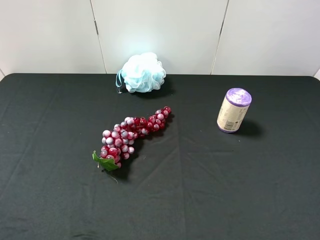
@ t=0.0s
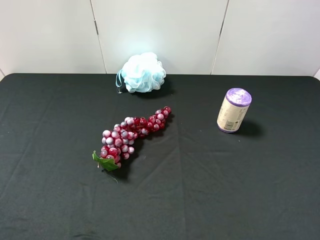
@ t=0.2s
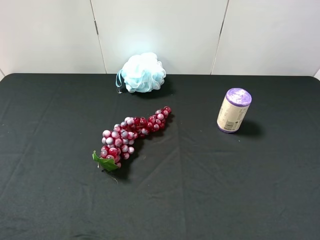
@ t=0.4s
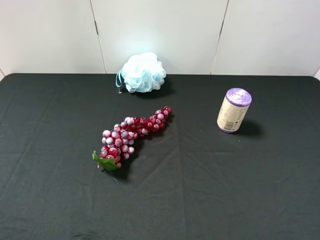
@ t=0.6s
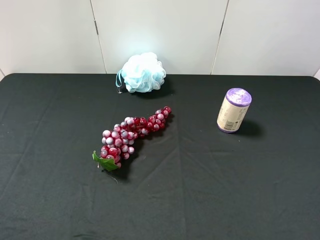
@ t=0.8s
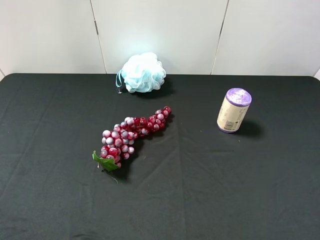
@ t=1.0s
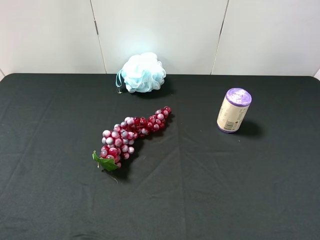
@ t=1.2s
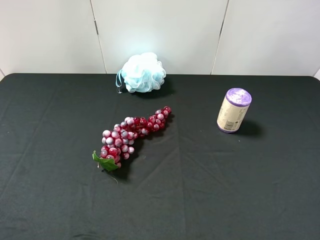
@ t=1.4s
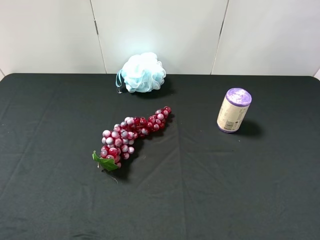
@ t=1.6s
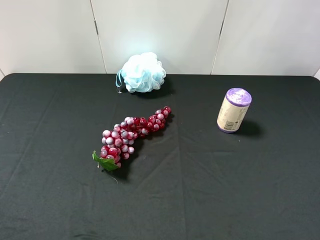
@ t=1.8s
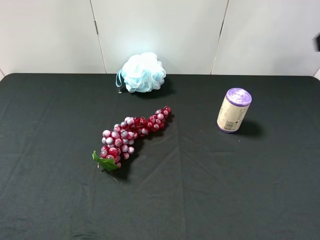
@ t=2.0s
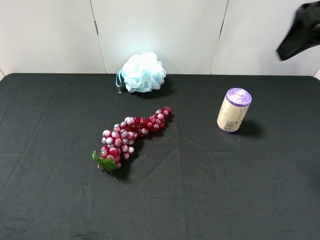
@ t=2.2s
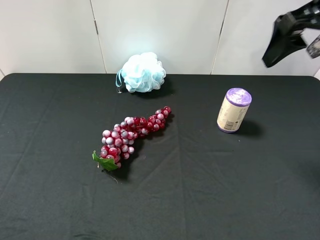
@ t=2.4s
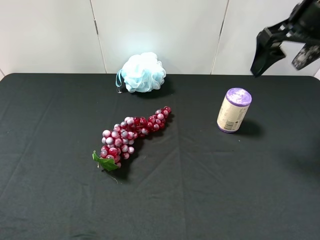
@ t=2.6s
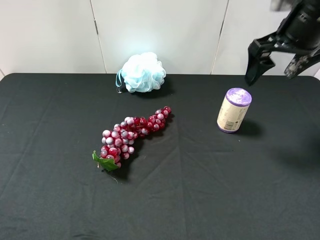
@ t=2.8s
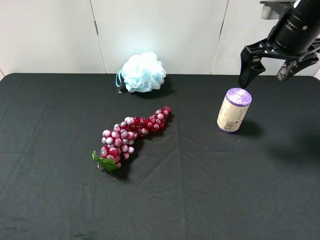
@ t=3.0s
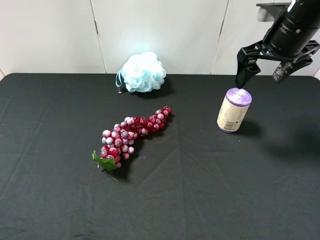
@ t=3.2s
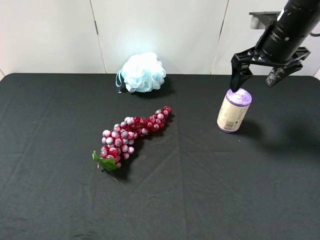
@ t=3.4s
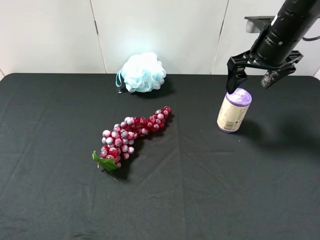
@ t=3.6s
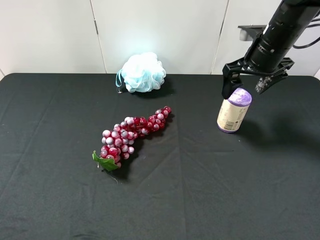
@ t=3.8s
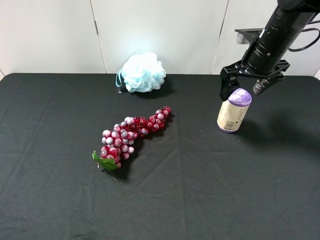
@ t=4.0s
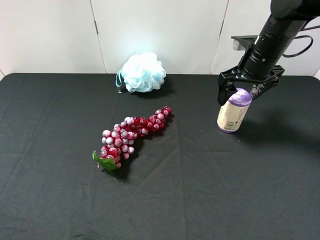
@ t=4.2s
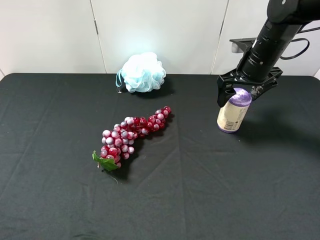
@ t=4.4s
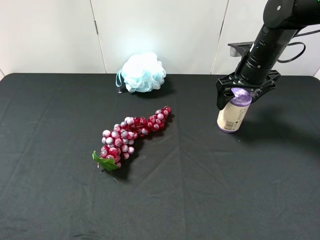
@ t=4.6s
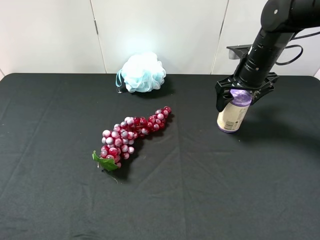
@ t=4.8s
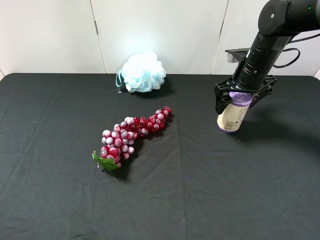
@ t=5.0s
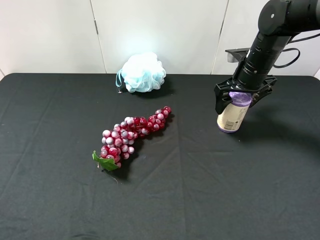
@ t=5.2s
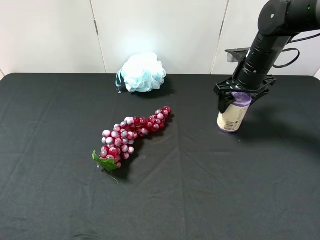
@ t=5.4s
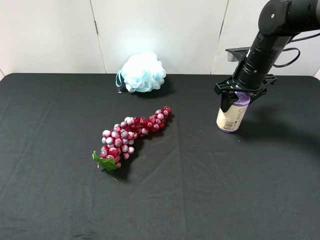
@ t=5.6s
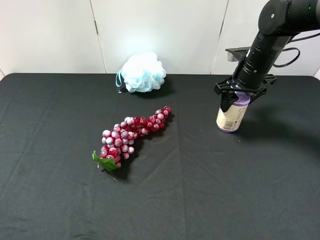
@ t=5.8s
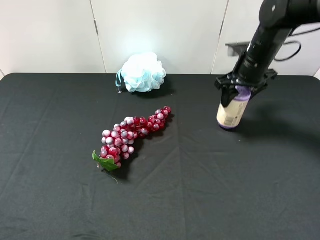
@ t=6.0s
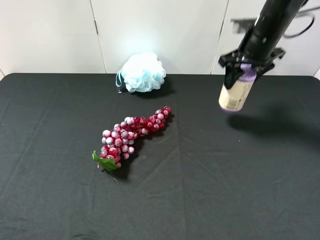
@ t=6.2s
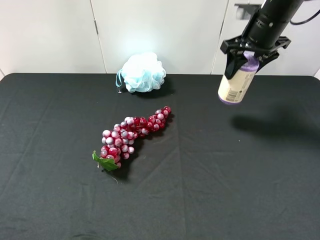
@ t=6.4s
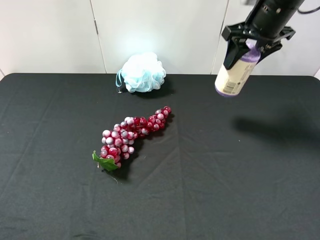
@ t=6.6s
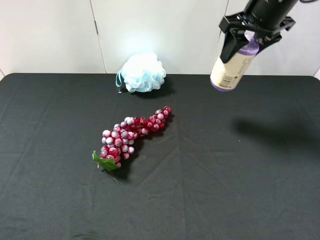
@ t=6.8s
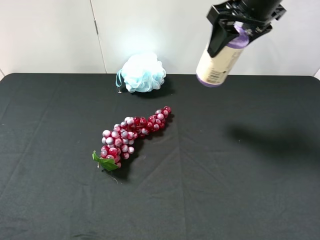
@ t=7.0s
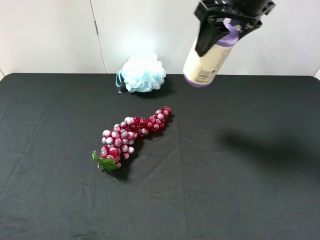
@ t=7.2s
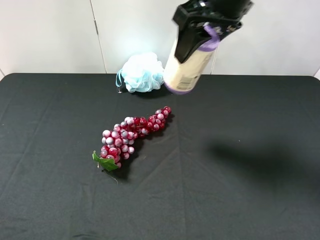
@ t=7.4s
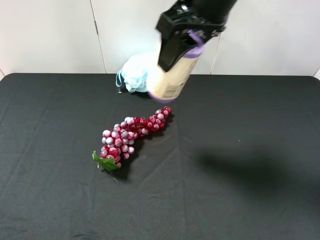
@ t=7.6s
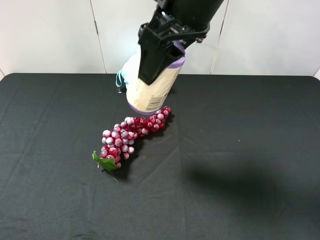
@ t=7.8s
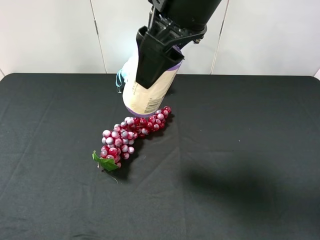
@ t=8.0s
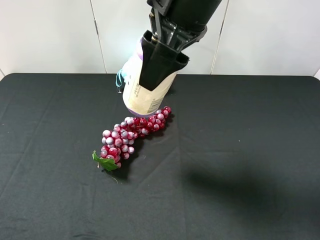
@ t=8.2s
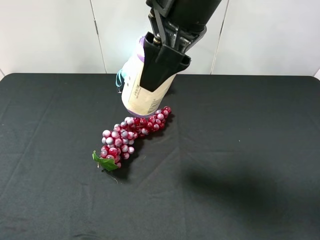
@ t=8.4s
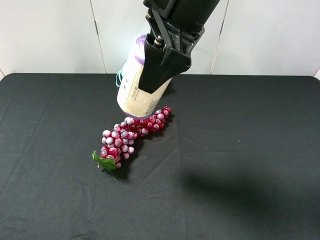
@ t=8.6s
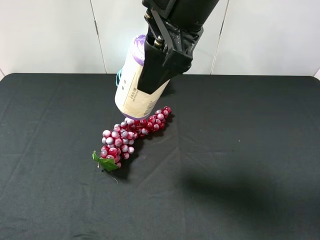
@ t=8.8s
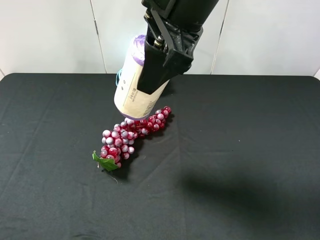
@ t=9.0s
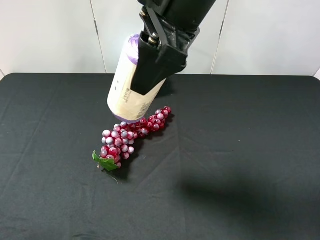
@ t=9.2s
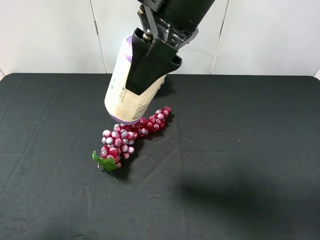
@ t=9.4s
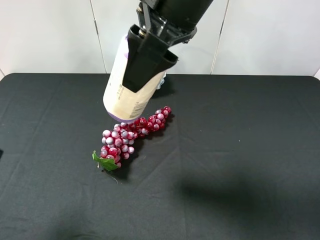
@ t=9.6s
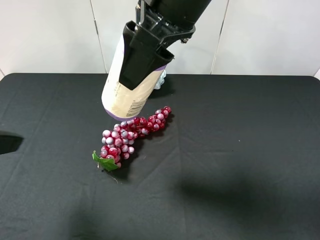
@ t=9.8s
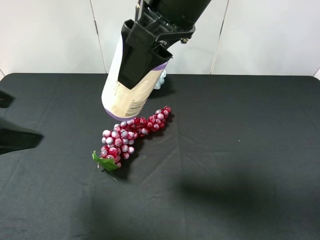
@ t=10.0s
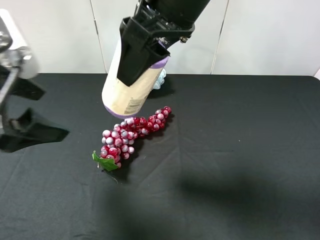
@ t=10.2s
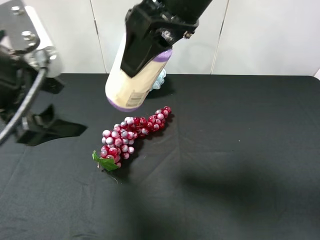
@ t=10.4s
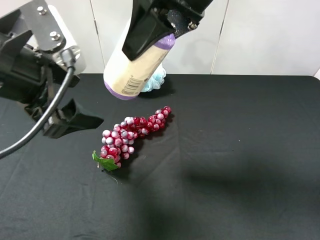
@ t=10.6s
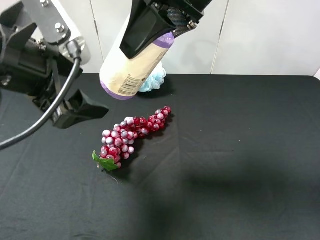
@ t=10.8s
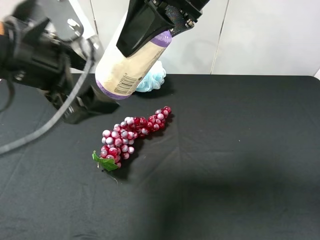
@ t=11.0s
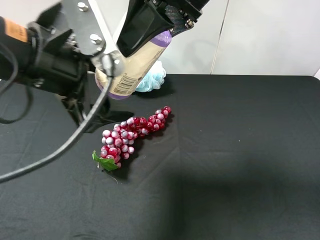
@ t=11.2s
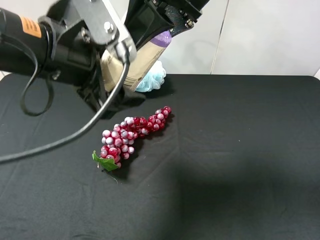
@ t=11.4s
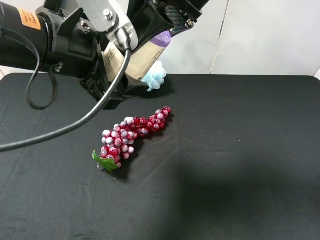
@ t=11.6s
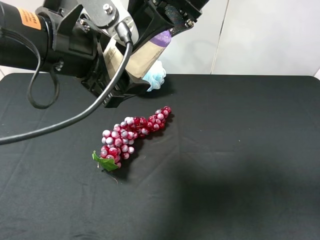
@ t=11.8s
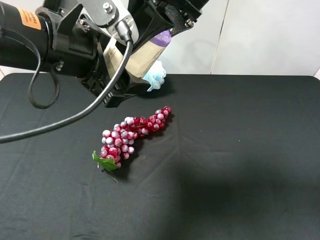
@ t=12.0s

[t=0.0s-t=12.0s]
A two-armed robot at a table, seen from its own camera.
Task of the whole recording: use the right gripper to pick up the item and transfer it from the right gripper to the left gripper.
Step, t=0.0s to t=5.6s: Use the right gripper to grab the purple garbage bag on the right side of the table.
t=1.6s to t=3.0s: The right gripper moves forward, about 20 cm.
t=3.0s to t=4.4s: The right gripper heads downward, covering about 10 cm.
t=4.4s to t=6.0s: The right gripper closes.
t=6.0s to t=7.6s: The right gripper travels upward, to the left and backward by roughly 25 cm.
t=9.0s to t=10.4s: The left gripper travels forward and to the right by some 20 cm.
t=10.4s to t=12.0s: The left gripper is displaced to the right by roughly 5 cm.

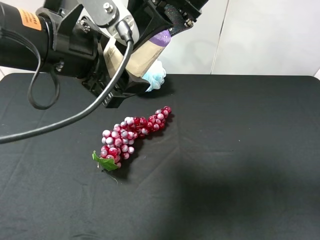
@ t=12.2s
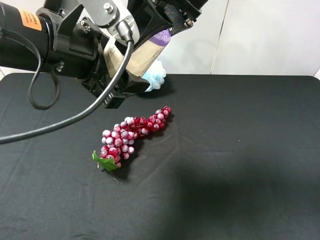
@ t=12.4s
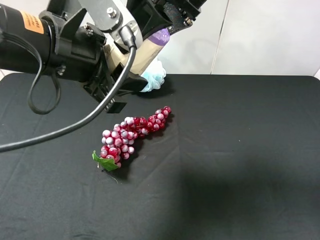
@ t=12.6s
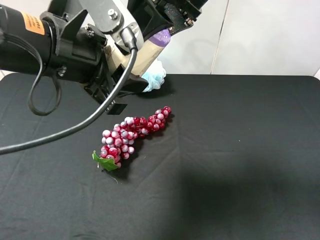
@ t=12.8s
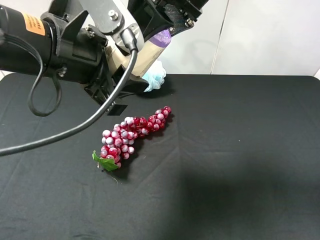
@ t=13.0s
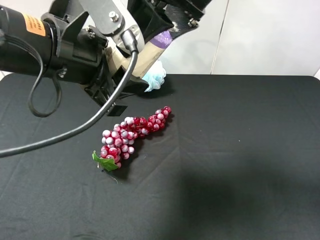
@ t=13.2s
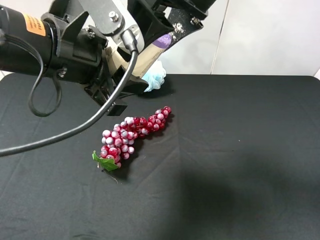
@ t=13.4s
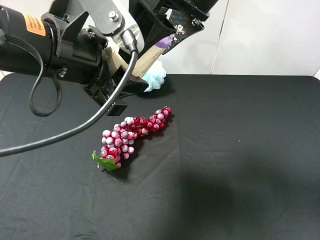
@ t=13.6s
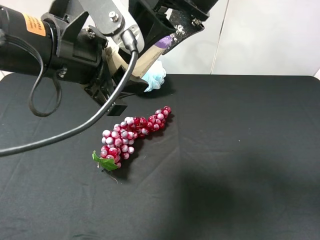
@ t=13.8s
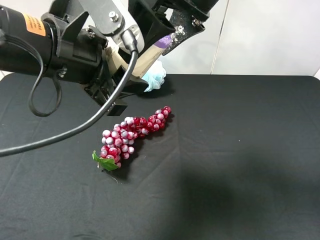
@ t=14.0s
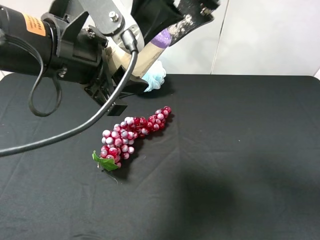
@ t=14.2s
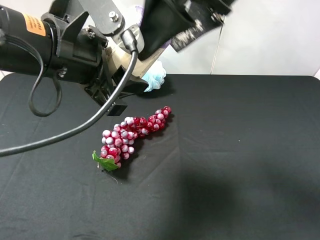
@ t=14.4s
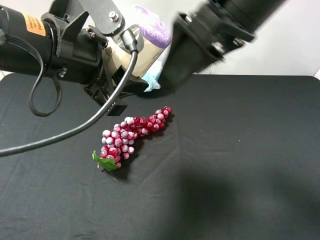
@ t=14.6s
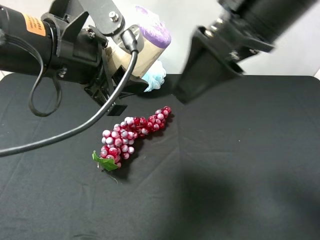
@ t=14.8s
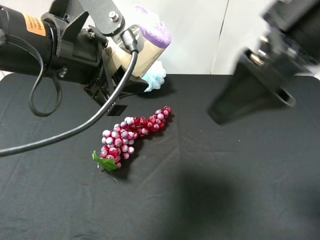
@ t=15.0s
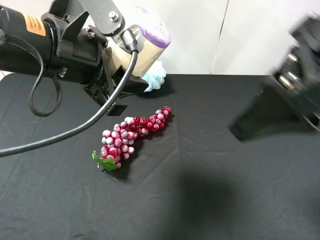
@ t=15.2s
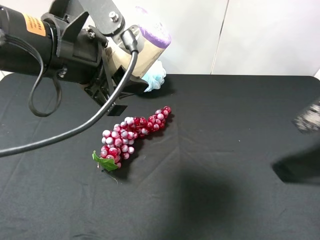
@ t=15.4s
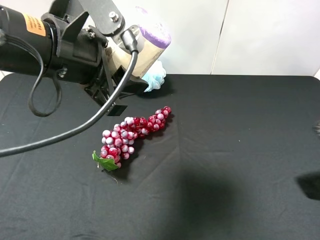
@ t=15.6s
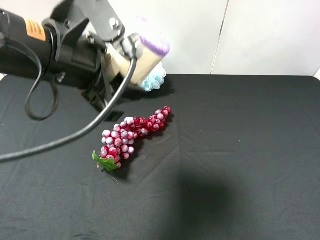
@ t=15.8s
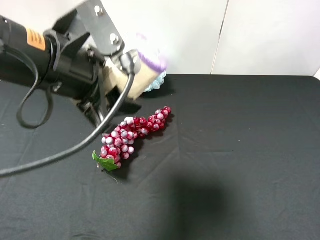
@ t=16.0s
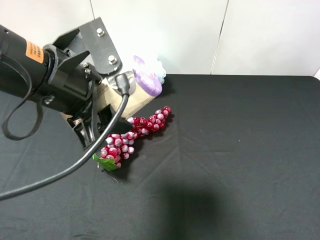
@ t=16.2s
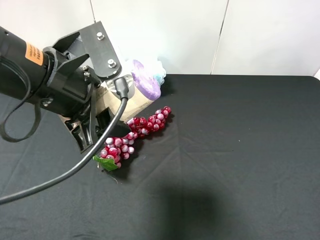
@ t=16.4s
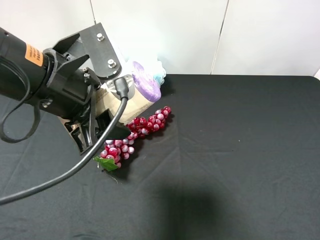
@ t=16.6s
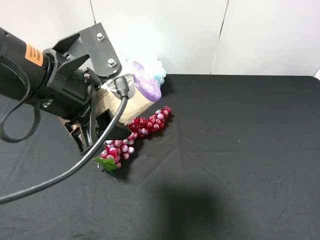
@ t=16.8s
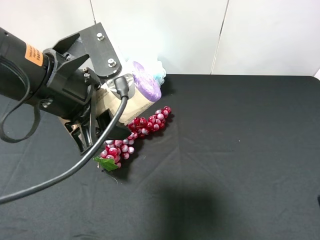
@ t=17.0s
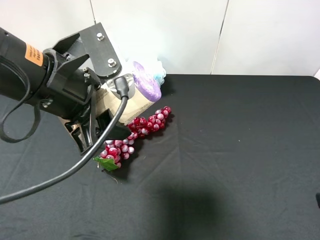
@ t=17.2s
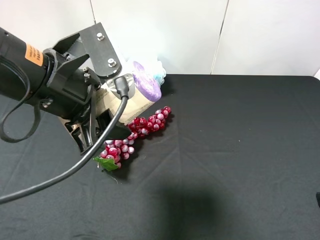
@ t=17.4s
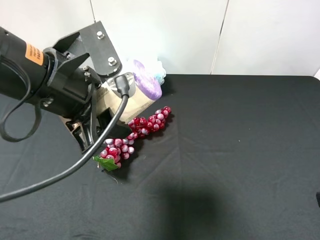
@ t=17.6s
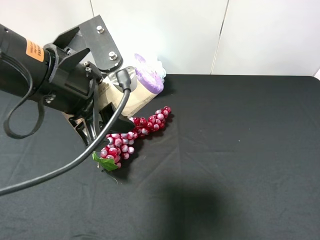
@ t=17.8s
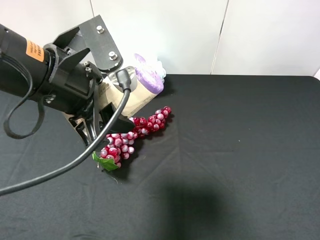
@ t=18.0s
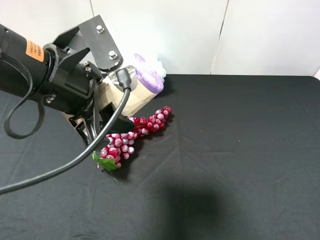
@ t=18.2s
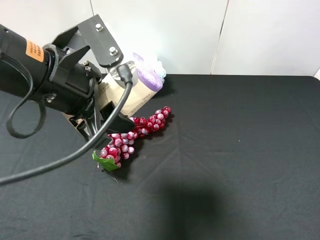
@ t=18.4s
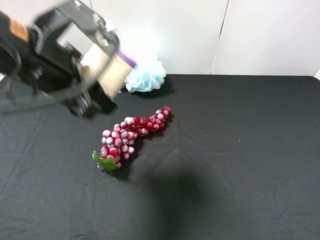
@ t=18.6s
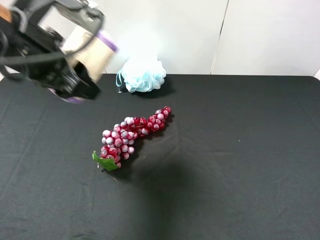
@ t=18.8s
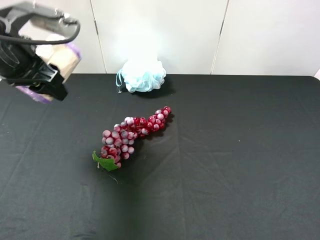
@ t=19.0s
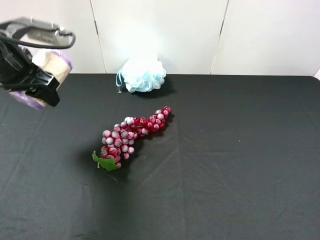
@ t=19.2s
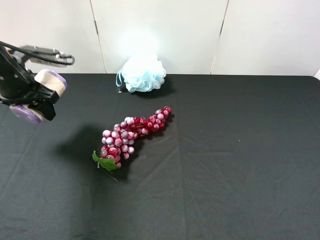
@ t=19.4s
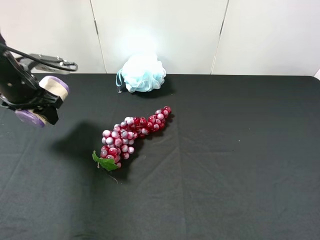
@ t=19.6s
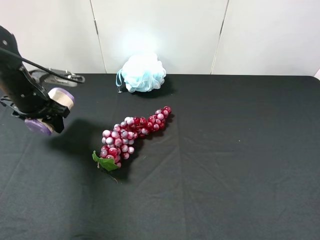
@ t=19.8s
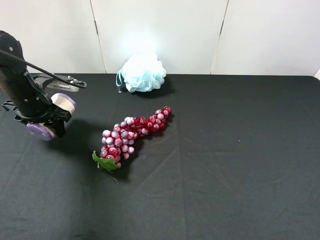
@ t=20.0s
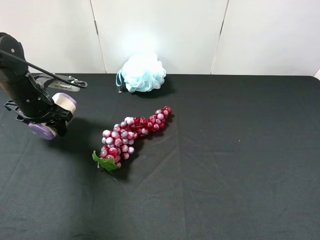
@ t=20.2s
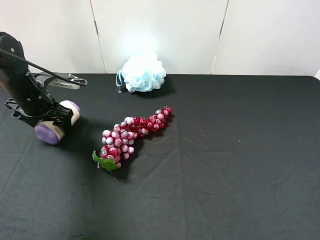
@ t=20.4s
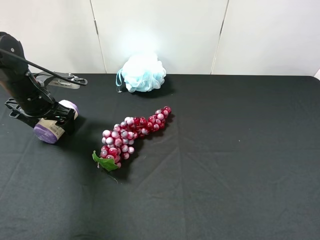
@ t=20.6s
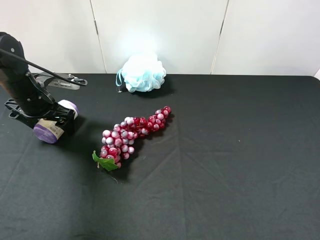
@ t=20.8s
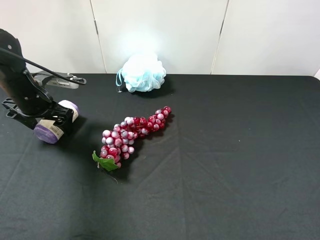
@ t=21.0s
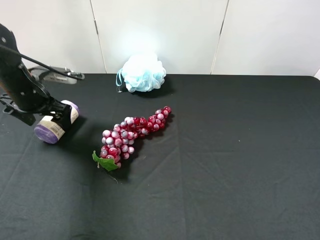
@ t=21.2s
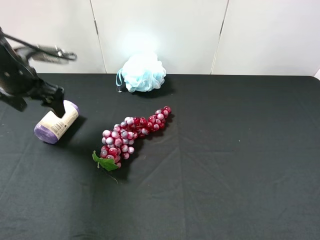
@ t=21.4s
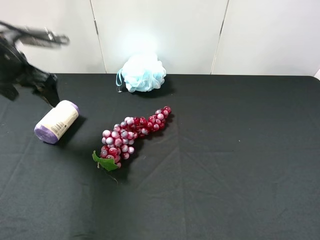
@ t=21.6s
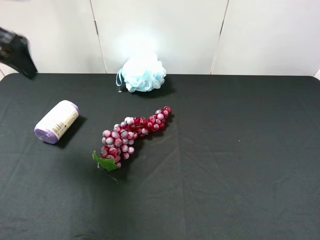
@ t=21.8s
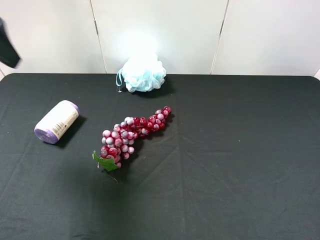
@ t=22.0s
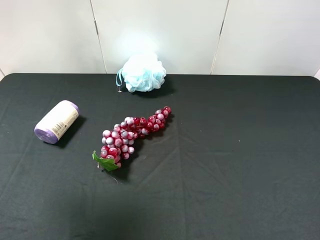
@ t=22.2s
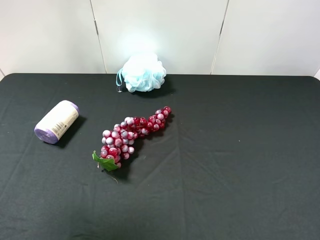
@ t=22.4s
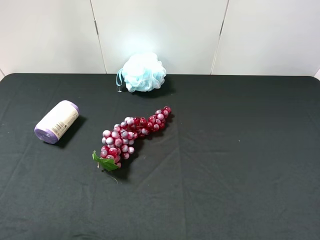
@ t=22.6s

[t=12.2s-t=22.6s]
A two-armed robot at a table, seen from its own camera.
Task of the whole recording: use the right gripper to pick up the item and transfer it from the right gripper to the left gripper.
Step, t=13.8s to t=20.6s: The left gripper places purple garbage bag on the left side of the table.
t=12.2s to t=13.6s: The right gripper opens, while the left gripper closes.
t=13.6s to t=15.2s: The right gripper travels backward and to the right by about 15 cm.
t=15.2s to t=16.6s: The right gripper heads backward, to the right and downward, covering roughly 20 cm.
t=18.2s to t=19.6s: The left gripper goes approximately 25 cm to the left, forward and downward.
t=19.6s to t=21.2s: The left gripper opens up.
t=21.2s to t=22.6s: The left gripper goes about 35 cm backward and upward.
